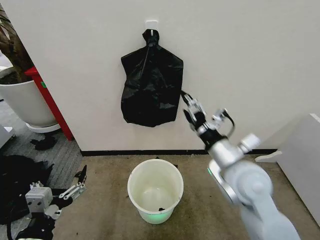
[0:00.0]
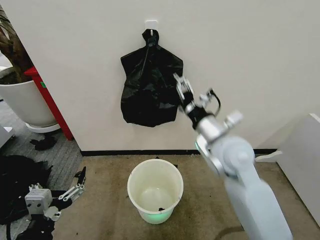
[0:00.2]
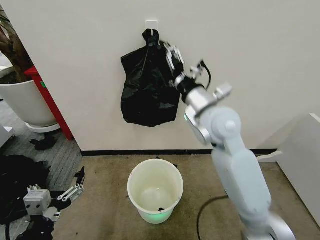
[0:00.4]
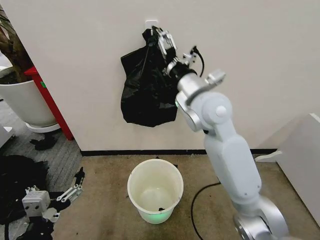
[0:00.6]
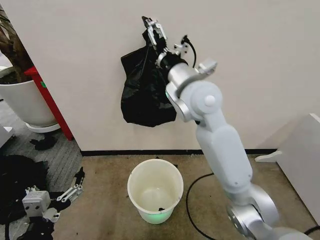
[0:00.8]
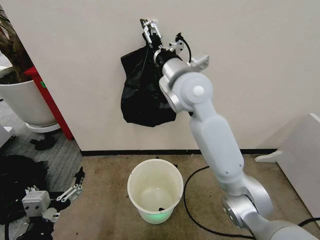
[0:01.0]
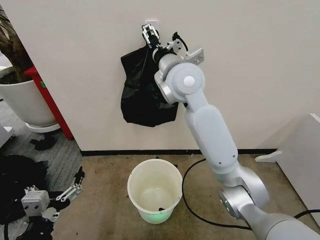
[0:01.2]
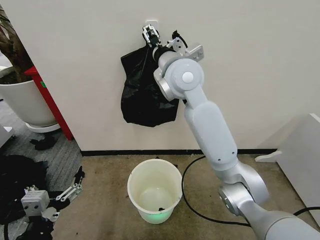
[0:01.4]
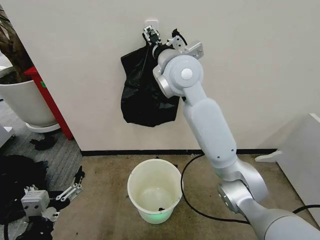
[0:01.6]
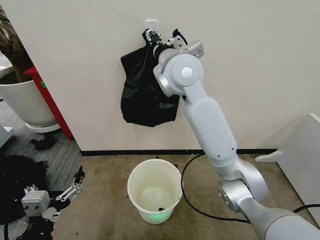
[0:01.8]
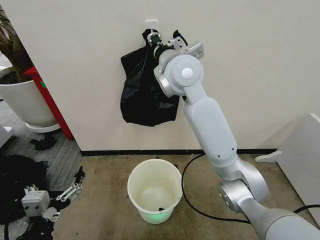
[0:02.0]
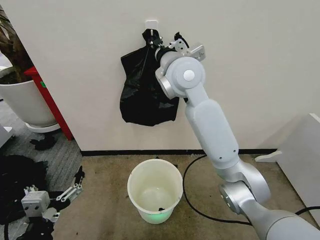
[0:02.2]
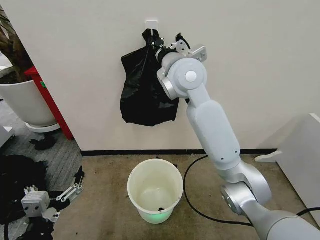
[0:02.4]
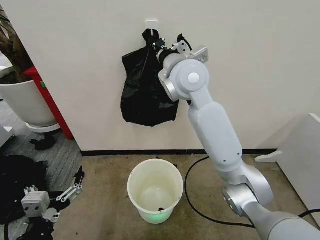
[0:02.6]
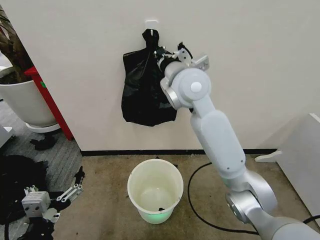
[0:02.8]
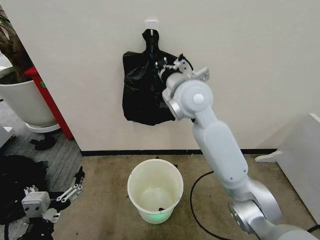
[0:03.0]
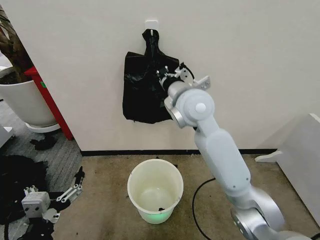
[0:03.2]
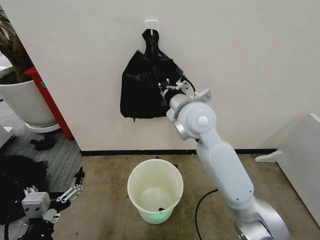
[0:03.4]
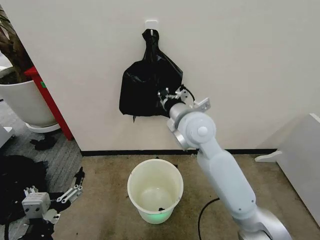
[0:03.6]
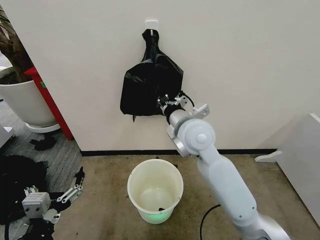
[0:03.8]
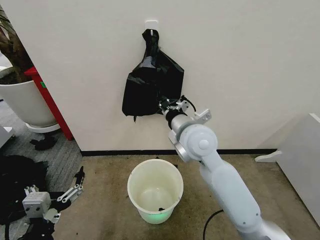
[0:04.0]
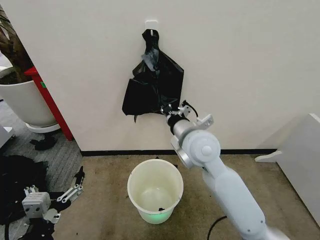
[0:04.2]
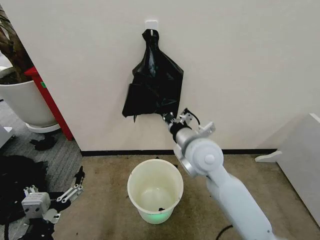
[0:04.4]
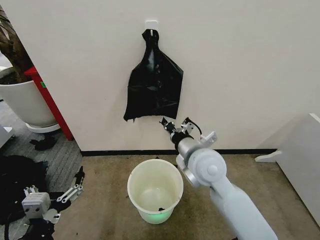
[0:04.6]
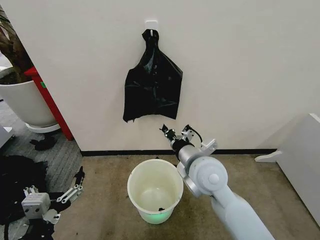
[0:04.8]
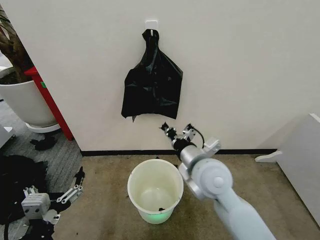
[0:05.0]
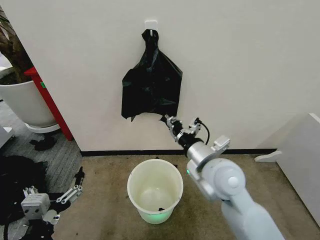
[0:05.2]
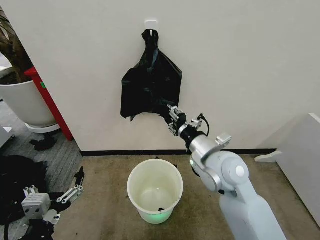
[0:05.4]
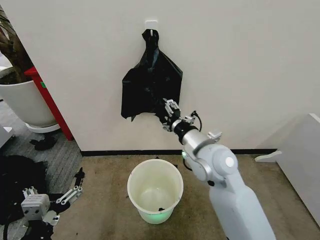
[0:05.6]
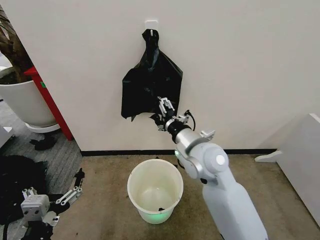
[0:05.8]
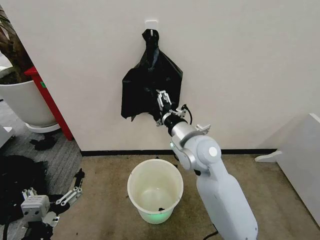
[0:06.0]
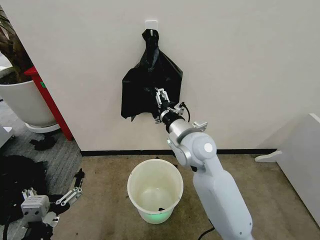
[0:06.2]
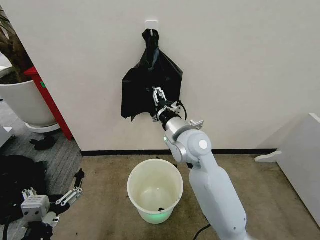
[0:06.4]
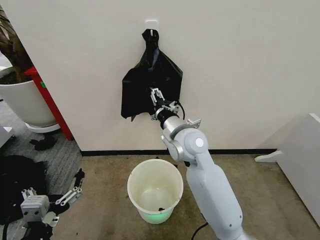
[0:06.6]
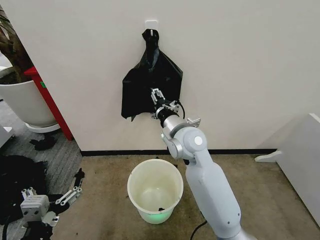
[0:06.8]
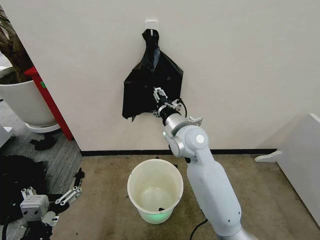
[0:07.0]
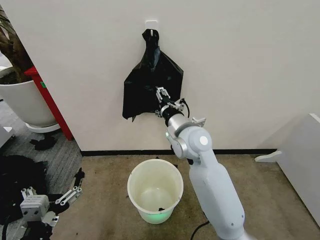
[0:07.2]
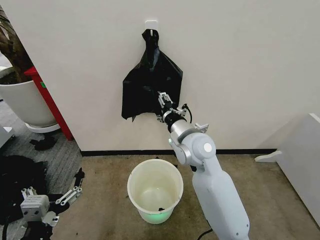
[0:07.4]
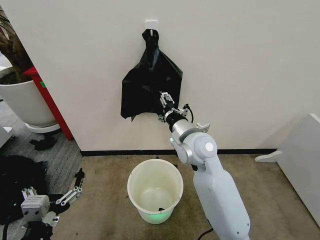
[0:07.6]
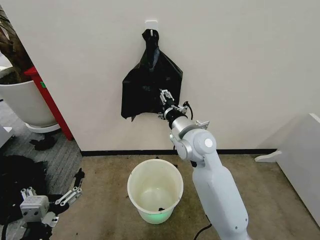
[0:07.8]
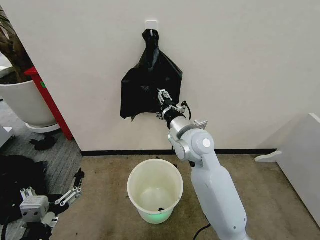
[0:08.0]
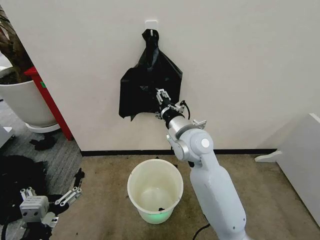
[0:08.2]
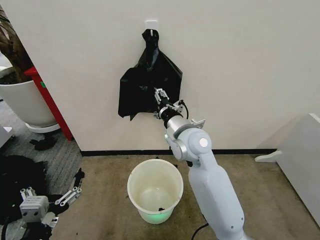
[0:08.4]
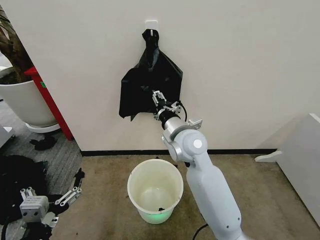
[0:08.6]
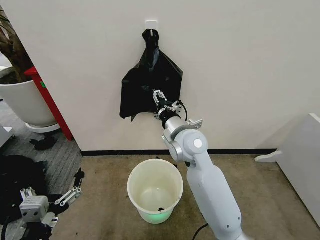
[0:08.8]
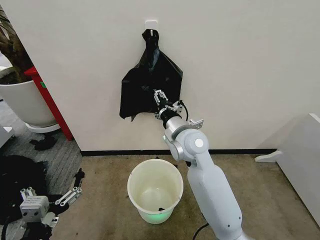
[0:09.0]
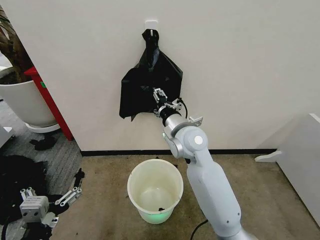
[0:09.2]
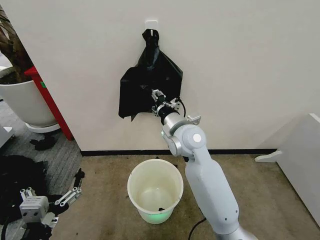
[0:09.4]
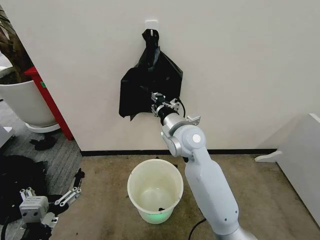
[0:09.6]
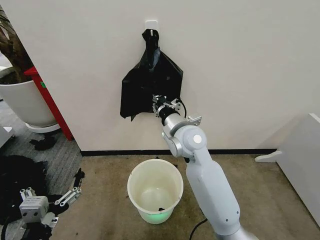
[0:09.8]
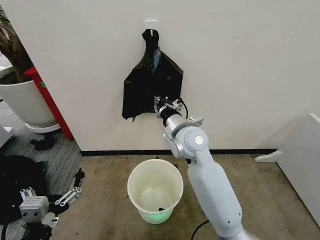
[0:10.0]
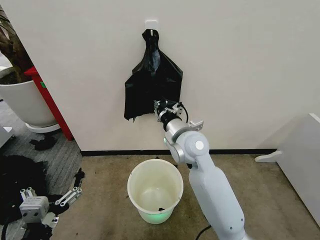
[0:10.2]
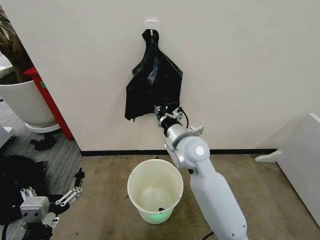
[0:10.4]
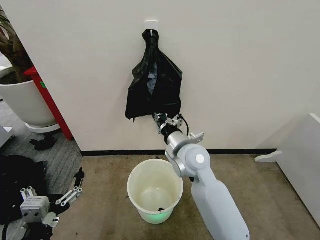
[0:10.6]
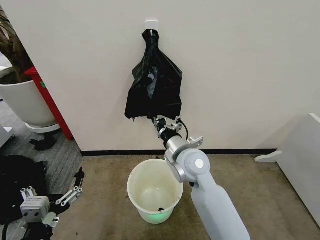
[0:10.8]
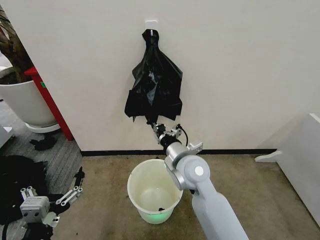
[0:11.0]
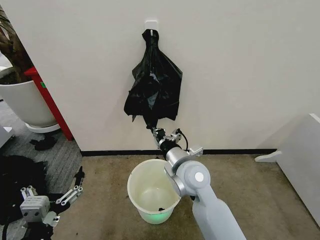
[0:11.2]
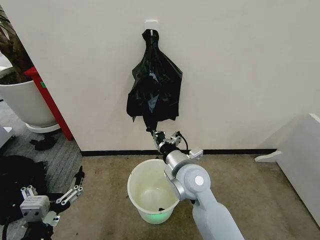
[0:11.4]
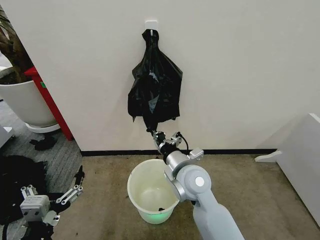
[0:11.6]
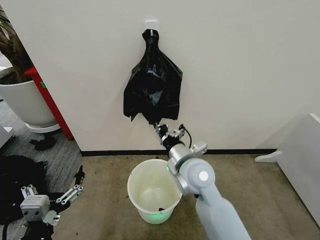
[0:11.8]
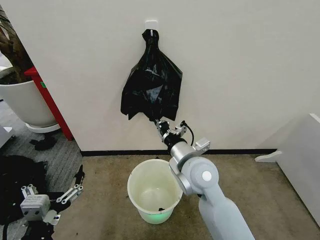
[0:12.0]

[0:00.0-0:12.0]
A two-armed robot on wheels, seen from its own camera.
Task of the whole recording: Place the garbage bag over the trash bin.
0:00.0 to 0:01.6: The right gripper goes roughly 30 cm upward, forward and to the left.
0:01.6 to 0:03.0: The right gripper is displaced downward by roughly 5 cm, and closes.
0:03.0 to 0:04.4: The right gripper heads downward and backward, covering about 15 cm.
0:04.4 to 0:06.0: The right gripper opens up.
0:06.0 to 0:09.0: The grippers stay close to where they were, moving slightly.
0:09.0 to 0:10.4: The right gripper closes.
0:10.4 to 0:12.0: The right gripper is displaced backward by approximately 5 cm.

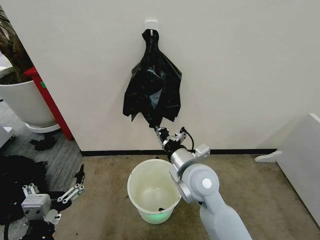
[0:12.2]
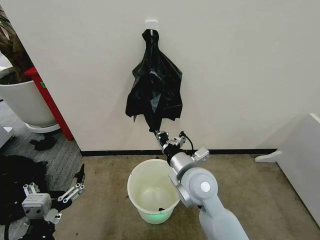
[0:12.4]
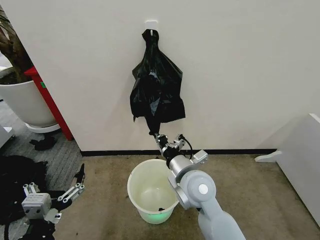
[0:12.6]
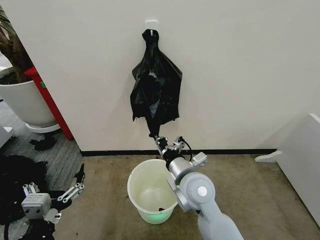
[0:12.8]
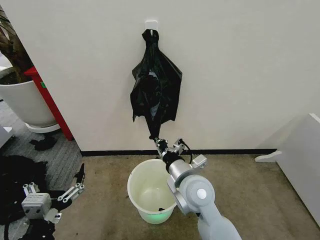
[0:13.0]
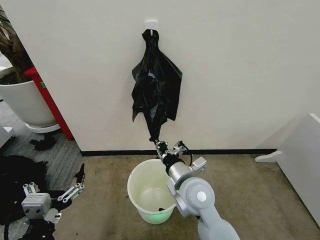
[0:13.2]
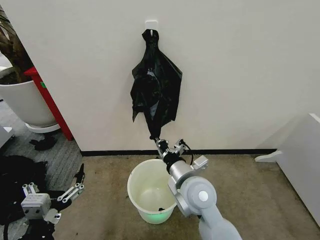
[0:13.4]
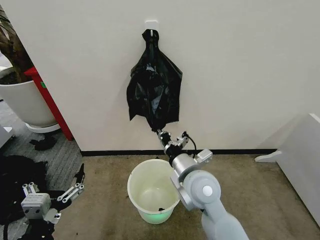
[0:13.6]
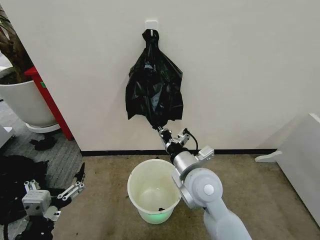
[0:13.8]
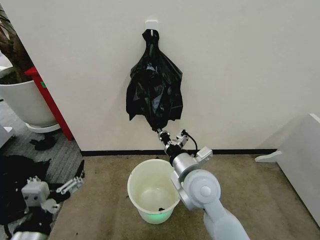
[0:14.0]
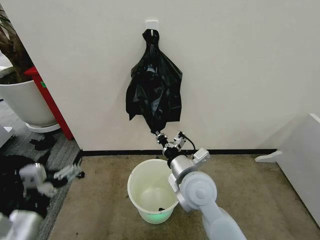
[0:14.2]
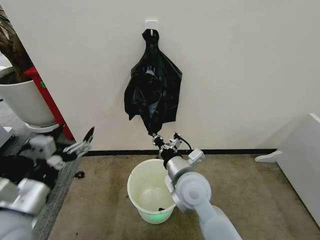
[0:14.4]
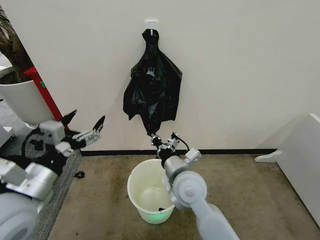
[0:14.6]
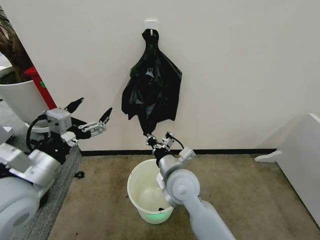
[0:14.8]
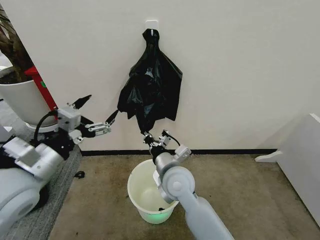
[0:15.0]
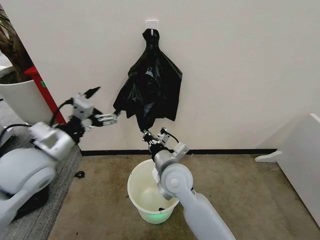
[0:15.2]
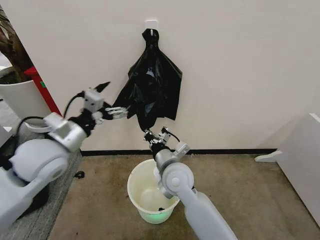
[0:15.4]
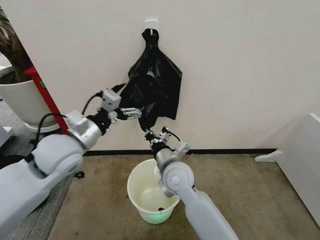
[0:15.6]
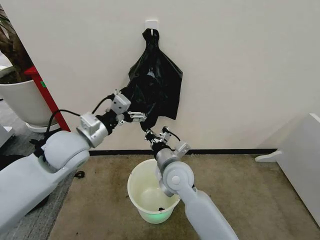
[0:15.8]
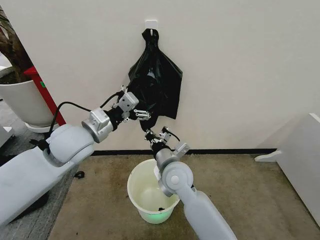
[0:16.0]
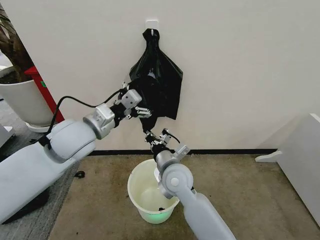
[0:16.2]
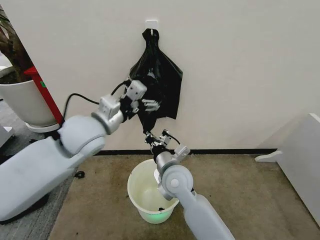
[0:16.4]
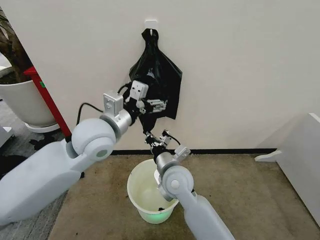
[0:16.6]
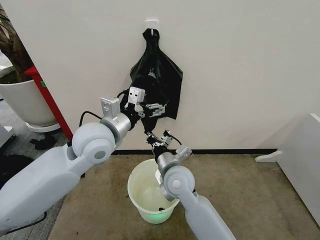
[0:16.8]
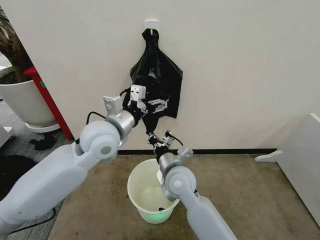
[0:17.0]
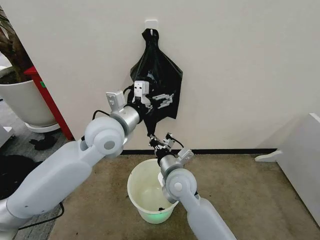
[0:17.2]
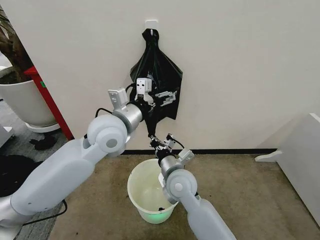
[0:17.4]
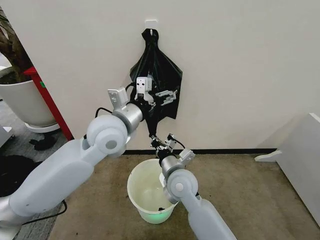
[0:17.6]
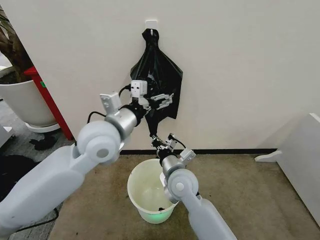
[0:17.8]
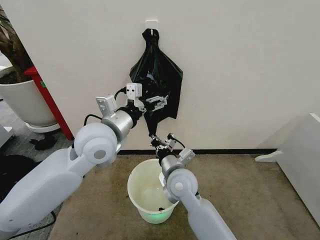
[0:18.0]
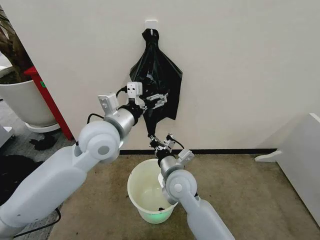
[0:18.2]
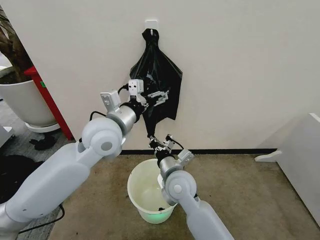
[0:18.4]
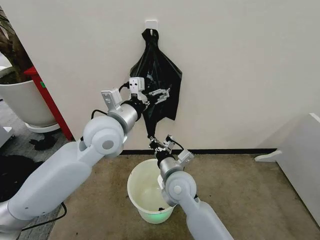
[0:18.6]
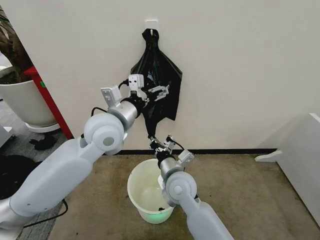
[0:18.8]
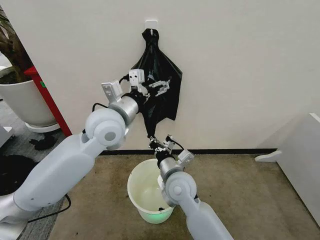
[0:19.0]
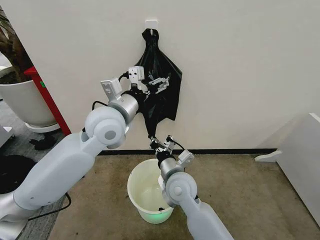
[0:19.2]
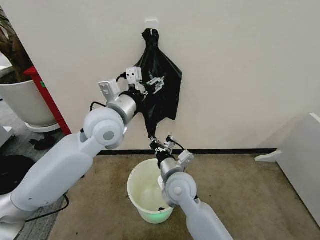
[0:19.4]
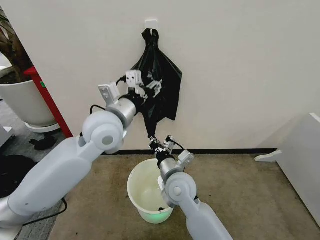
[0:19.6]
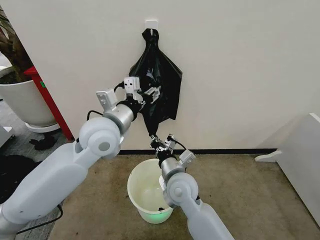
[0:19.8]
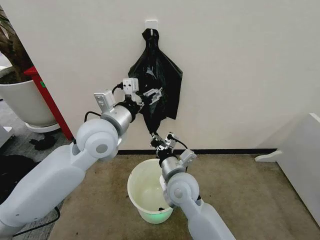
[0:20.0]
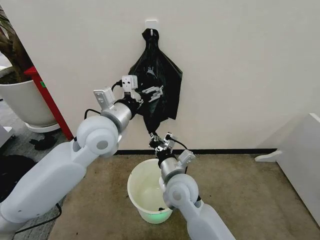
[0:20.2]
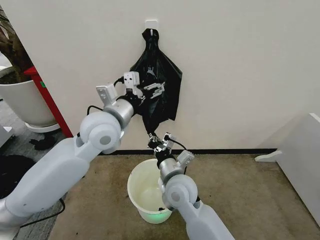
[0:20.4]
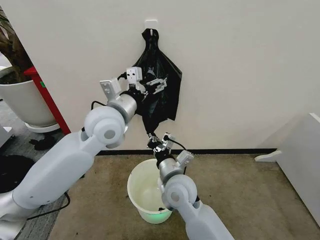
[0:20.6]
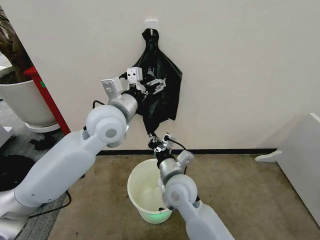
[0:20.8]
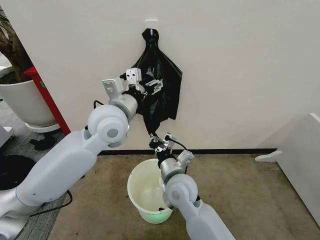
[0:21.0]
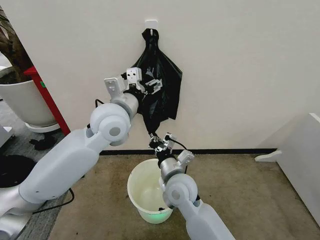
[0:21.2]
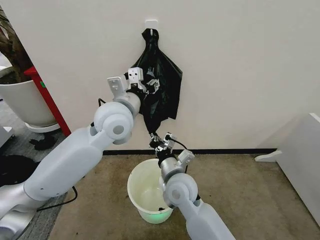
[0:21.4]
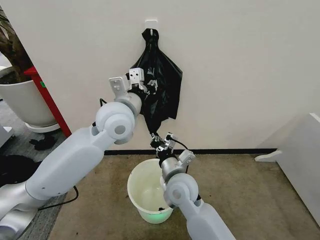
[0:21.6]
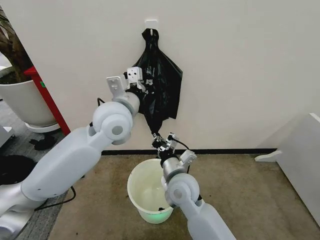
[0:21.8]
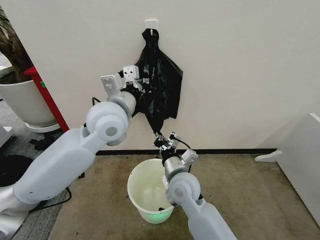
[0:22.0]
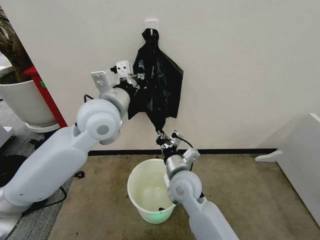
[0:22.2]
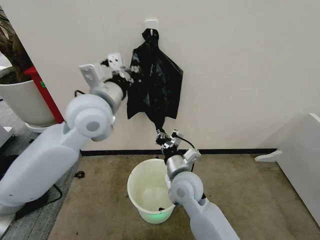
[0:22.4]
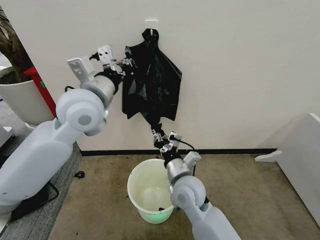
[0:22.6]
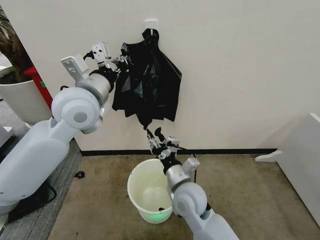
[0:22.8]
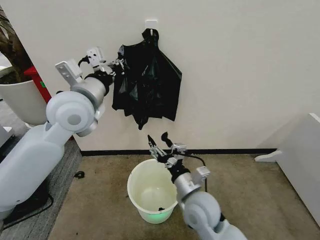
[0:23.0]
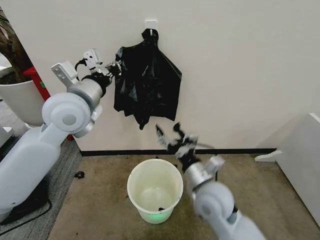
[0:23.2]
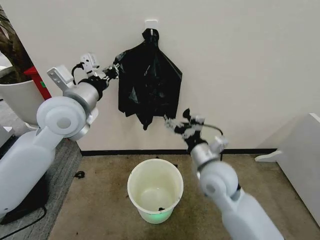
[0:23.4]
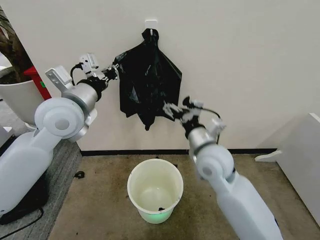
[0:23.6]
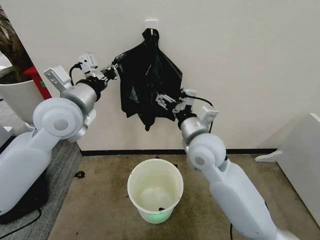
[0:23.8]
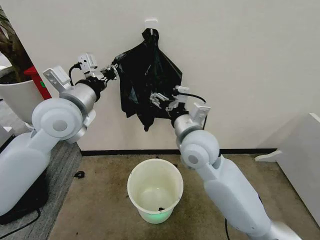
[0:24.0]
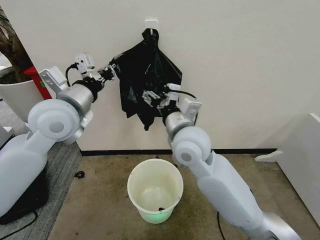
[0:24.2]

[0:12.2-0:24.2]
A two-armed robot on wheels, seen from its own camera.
Task of the whole recording: Place the garbage bag over the trash bin.
0:12.2 to 0:13.8: The grippers stay close to where they were, moving slightly.
0:13.8 to 0:15.2: The left gripper heads forward and upward, covering approximately 25 cm; the right gripper moves to the left, about 5 cm.
0:15.2 to 0:16.6: The left gripper shifts approximately 15 cm to the right and forward.
0:18.2 to 0:19.8: The left gripper closes.
0:19.8 to 0:21.2: The grippers move only a little.
0:21.2 to 0:22.6: The left gripper heads to the left, covering about 5 cm, and closes.
0:22.6 to 0:24.2: The right gripper goes approximately 15 cm upward, and opens. The left gripper is displaced to the left by approximately 5 cm.
